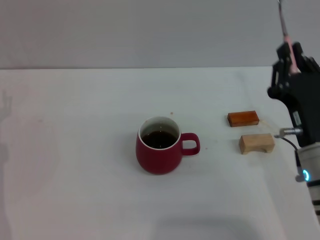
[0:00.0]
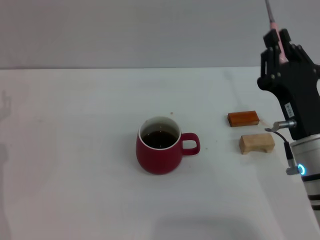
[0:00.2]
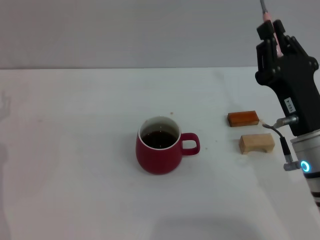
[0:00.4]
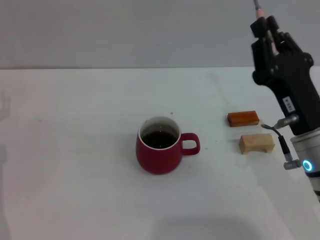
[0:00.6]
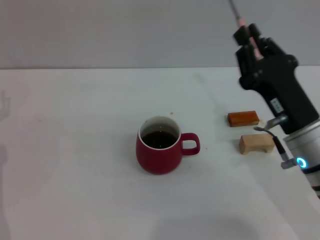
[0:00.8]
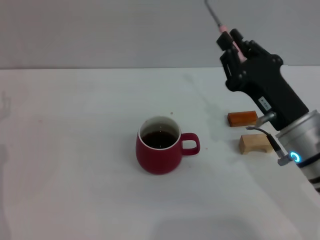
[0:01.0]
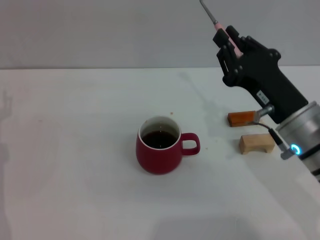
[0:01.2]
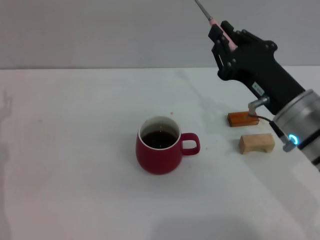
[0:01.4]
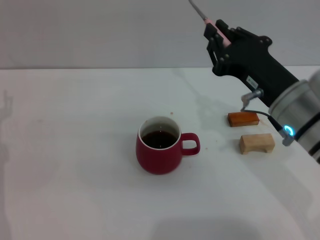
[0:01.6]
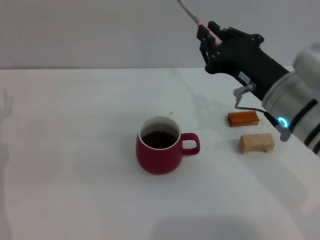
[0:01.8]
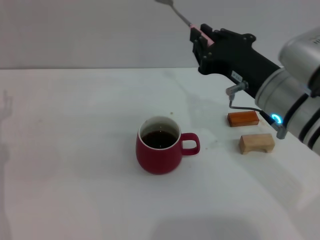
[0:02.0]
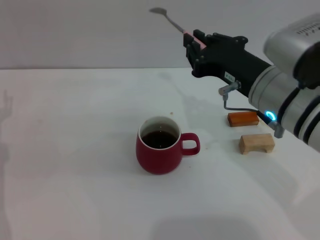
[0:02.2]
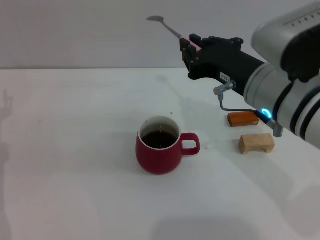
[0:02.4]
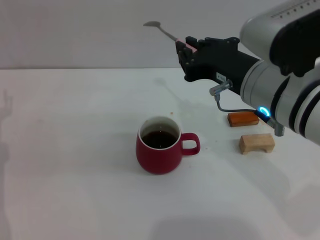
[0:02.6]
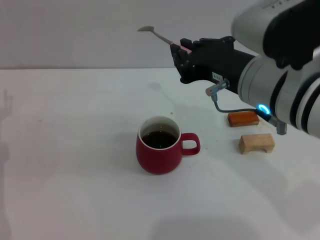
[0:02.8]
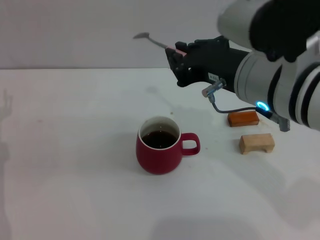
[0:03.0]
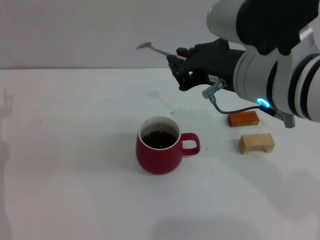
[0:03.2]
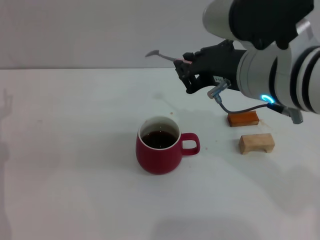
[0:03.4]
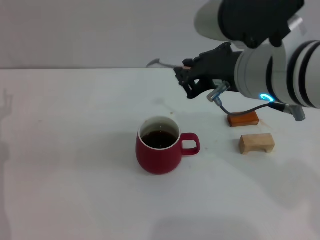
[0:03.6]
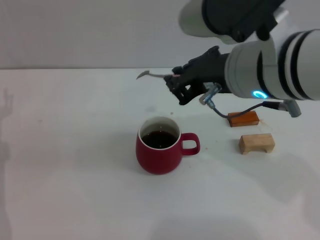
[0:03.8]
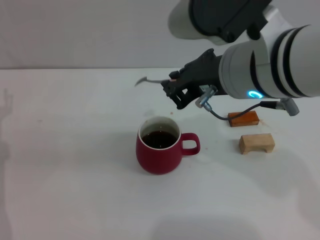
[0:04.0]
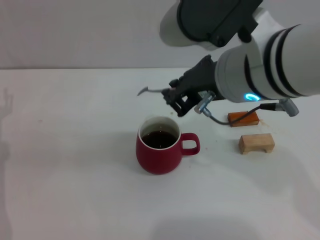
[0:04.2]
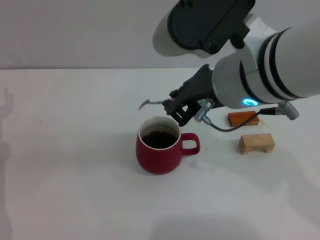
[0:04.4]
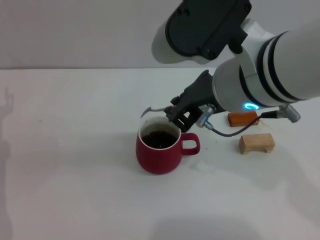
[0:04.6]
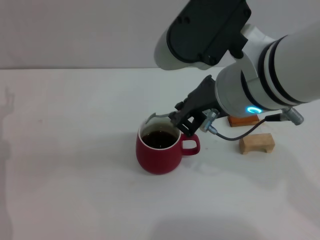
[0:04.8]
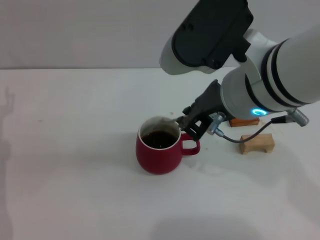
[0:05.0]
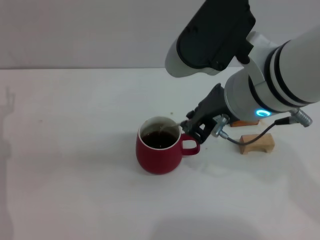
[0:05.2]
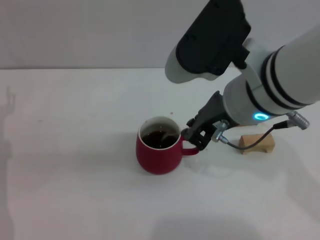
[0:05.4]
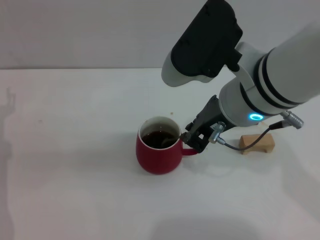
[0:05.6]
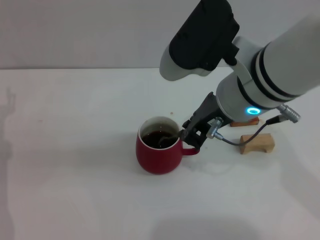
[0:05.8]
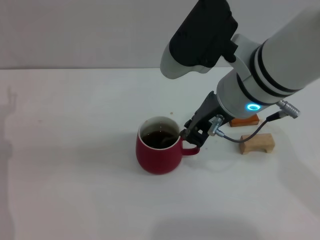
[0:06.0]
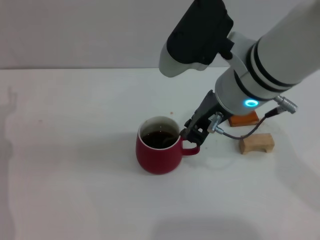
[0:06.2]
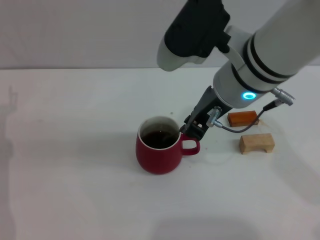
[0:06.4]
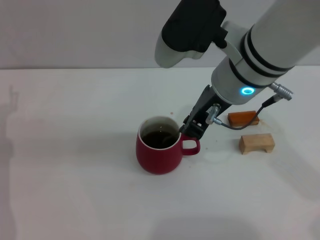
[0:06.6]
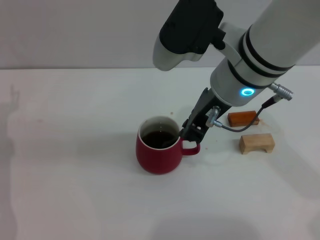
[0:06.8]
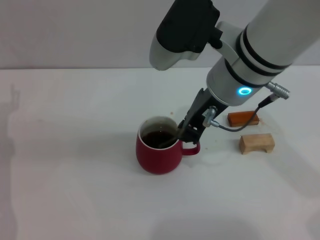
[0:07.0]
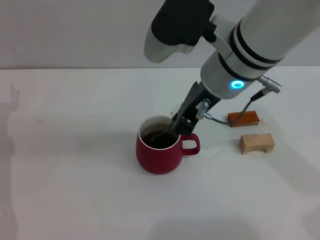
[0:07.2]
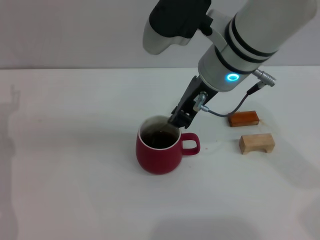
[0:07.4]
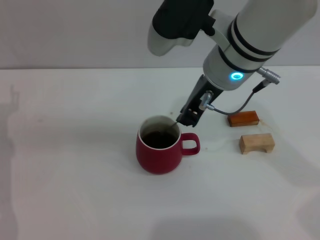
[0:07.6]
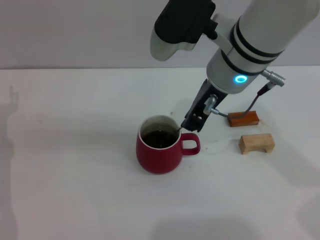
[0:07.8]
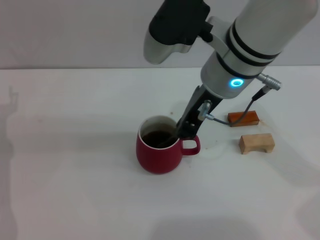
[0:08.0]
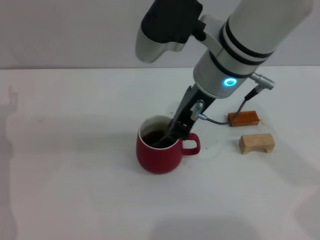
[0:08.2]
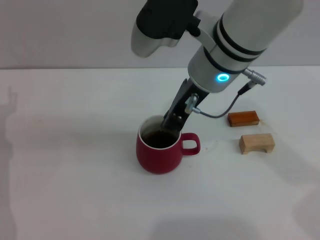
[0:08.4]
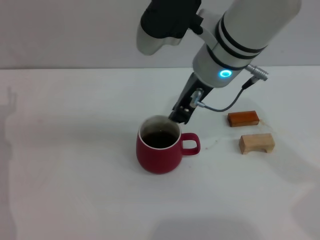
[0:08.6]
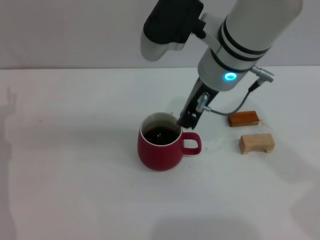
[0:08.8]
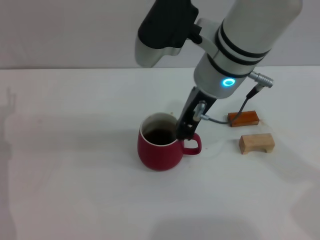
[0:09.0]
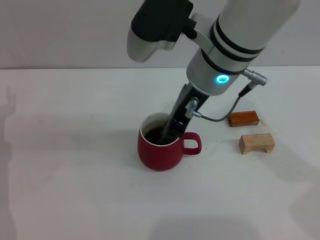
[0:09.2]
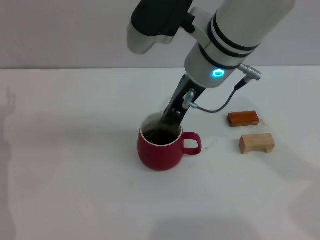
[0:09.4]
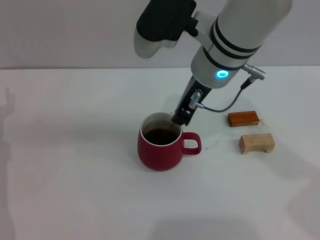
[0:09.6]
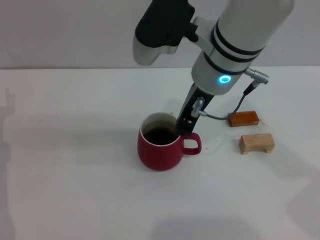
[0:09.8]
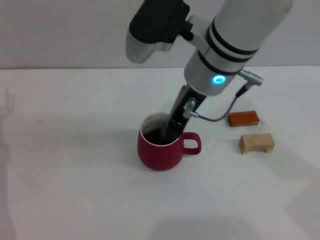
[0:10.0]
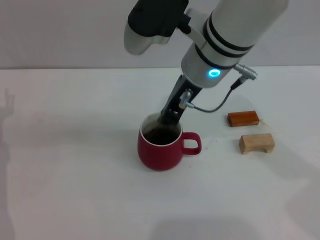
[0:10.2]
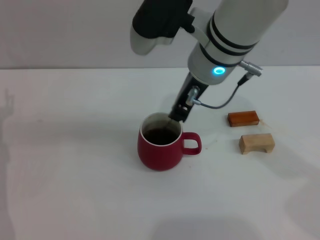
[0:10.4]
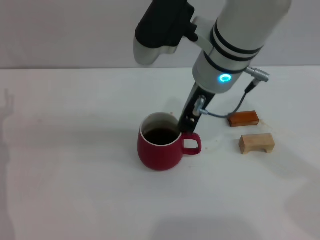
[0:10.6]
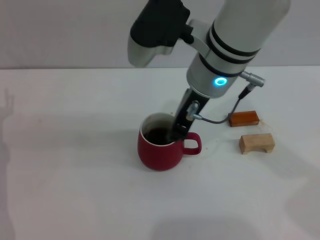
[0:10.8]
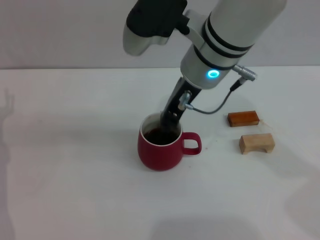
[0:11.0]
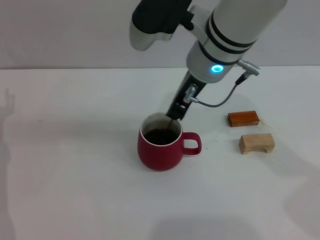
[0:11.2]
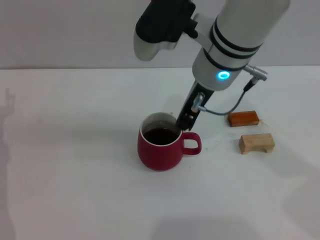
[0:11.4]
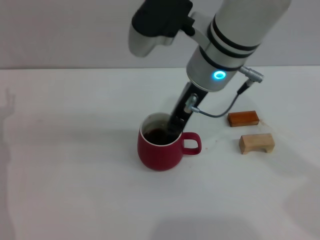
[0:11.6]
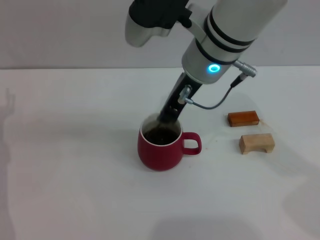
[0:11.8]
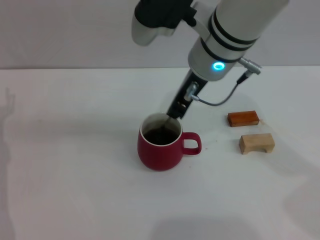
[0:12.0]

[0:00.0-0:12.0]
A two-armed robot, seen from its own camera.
Task of the whole recording: Move the red cup to the center, lift the pink spoon, stir it three times in the cup, and put the spoon into the cup.
0:00.0 to 0:01.6: The right gripper goes about 5 cm upward.
0:01.6 to 0:03.0: The right gripper heads upward and to the left, covering roughly 10 cm.
0:04.4 to 0:06.0: There are only small adjustments of the grippers.
0:06.0 to 0:07.6: The right gripper changes place by approximately 5 cm.
0:07.6 to 0:12.0: The grippers make only small movements.

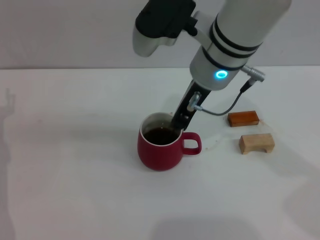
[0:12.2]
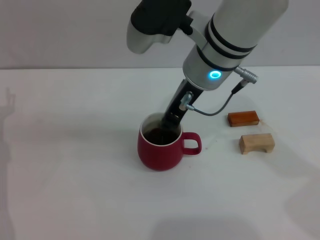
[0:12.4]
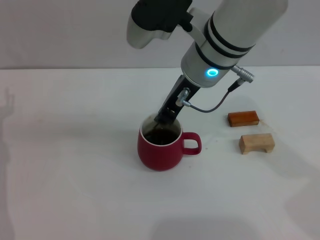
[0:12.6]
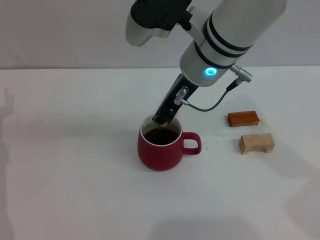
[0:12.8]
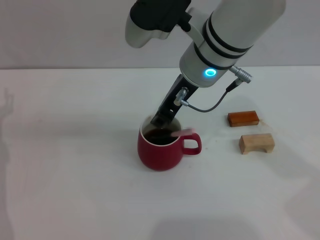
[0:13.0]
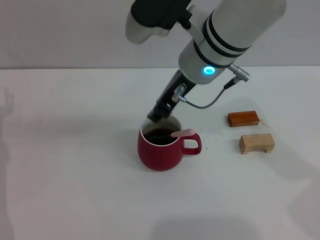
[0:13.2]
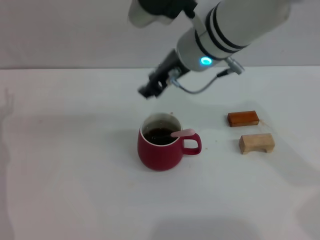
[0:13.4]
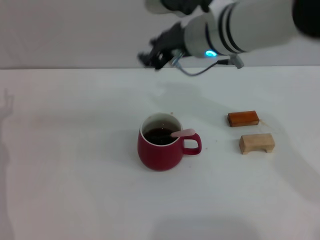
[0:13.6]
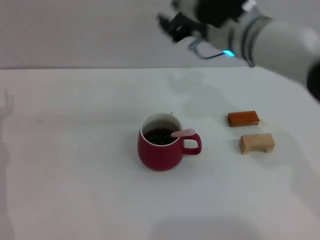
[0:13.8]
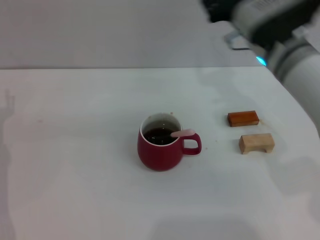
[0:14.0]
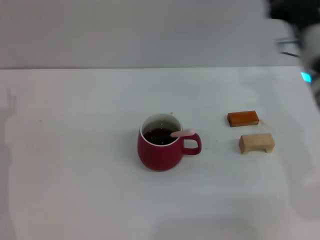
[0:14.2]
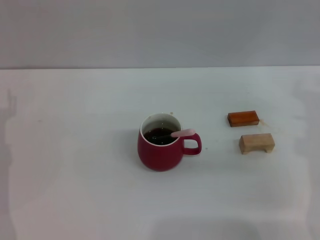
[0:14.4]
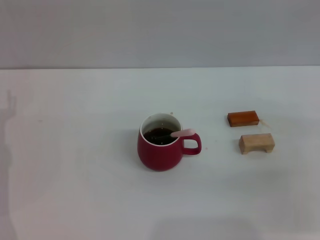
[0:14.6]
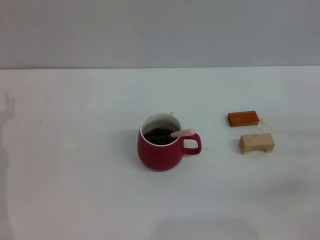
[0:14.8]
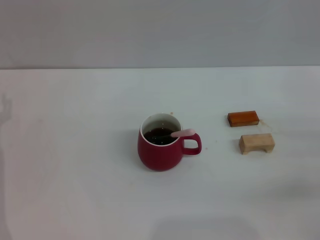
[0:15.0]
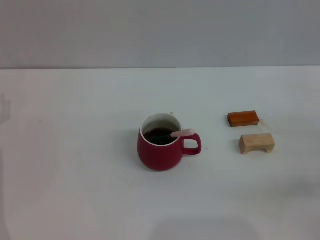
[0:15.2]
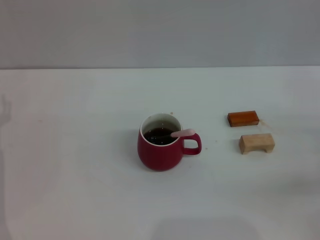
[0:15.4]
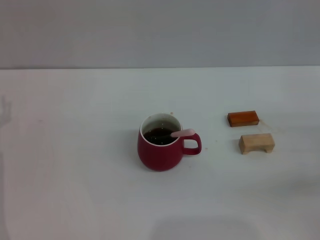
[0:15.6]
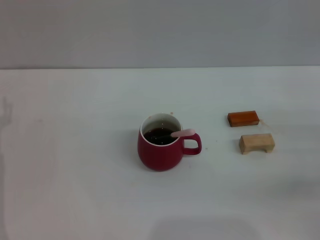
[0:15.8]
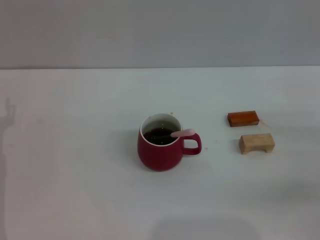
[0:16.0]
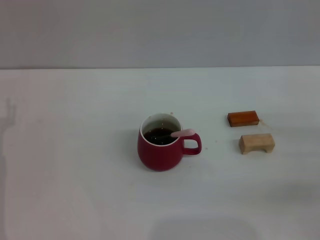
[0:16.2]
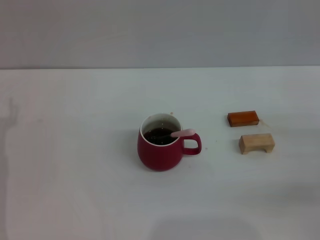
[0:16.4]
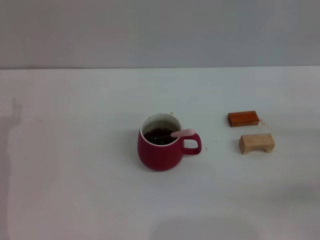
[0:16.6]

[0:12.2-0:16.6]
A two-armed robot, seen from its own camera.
Task of the whole recording: Move the red cup to the center, lift the pink spoon, stir it three times in the cup, and put the spoon into the cup.
0:12.2 to 0:13.6: The right gripper opens its fingers.
0:13.6 to 0:15.2: The right gripper is displaced to the right, downward and backward by roughly 35 cm.

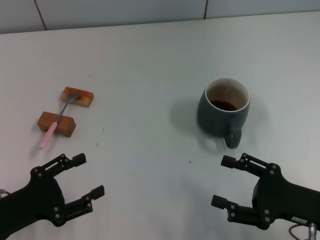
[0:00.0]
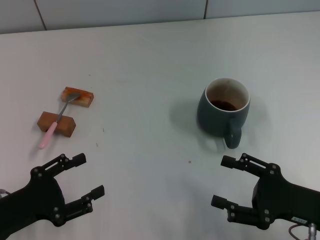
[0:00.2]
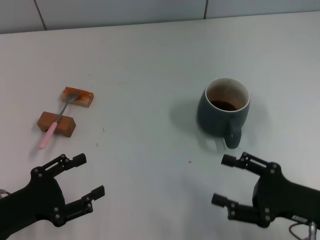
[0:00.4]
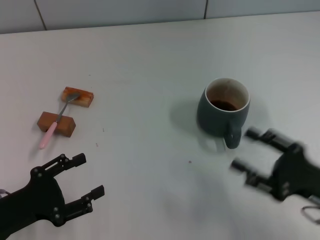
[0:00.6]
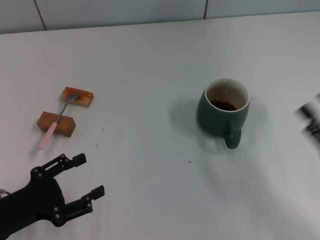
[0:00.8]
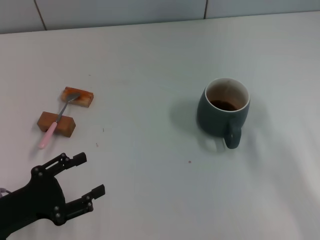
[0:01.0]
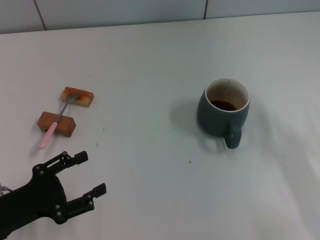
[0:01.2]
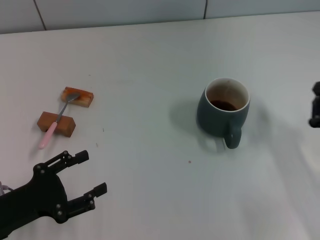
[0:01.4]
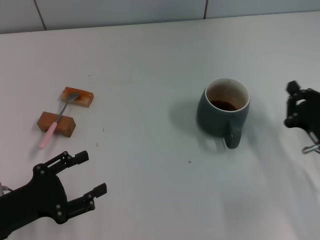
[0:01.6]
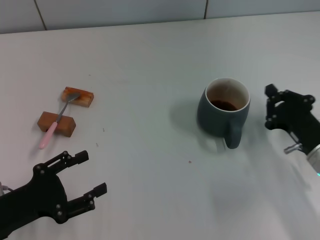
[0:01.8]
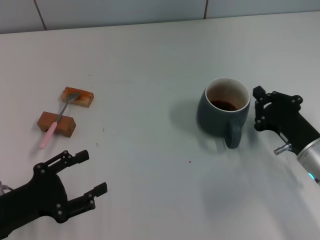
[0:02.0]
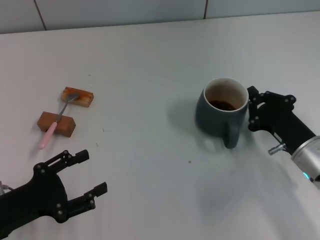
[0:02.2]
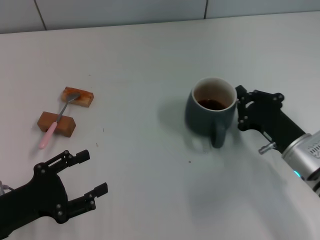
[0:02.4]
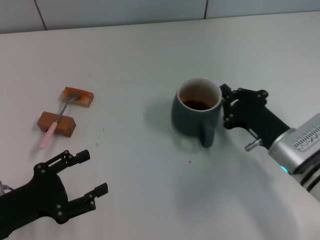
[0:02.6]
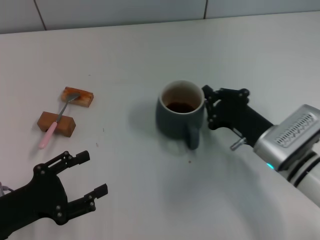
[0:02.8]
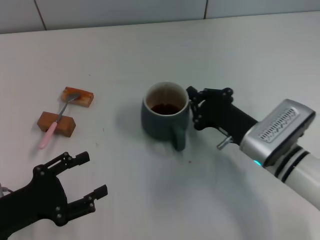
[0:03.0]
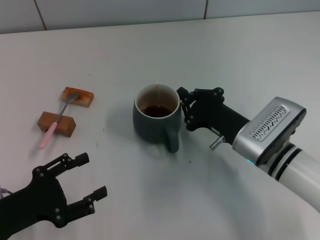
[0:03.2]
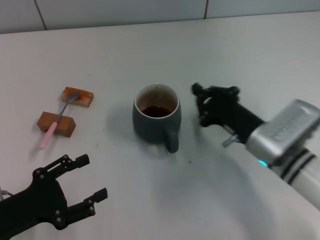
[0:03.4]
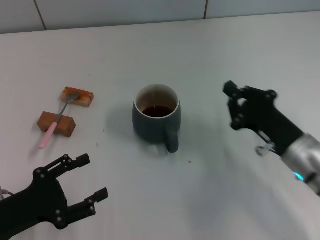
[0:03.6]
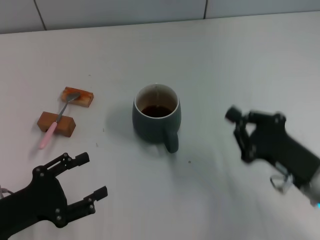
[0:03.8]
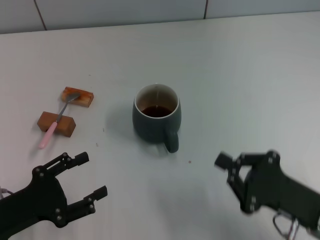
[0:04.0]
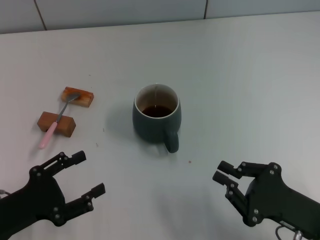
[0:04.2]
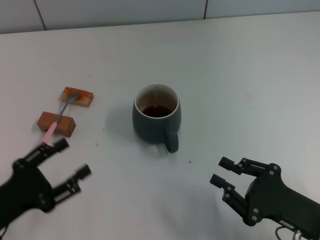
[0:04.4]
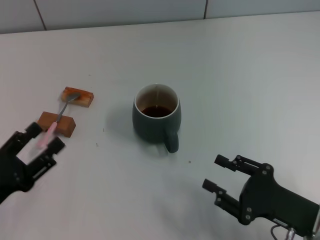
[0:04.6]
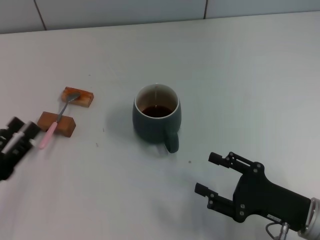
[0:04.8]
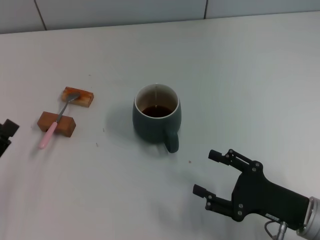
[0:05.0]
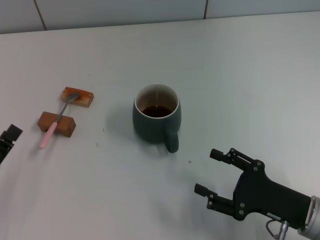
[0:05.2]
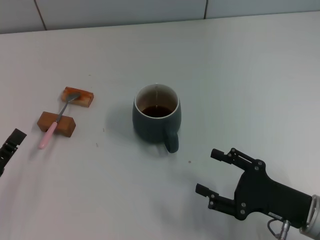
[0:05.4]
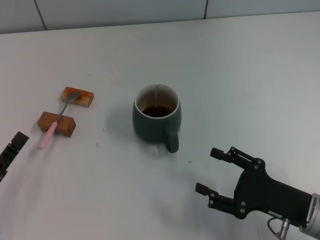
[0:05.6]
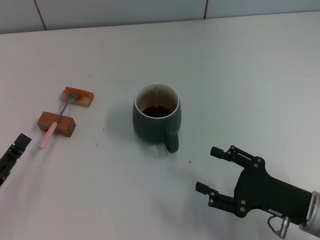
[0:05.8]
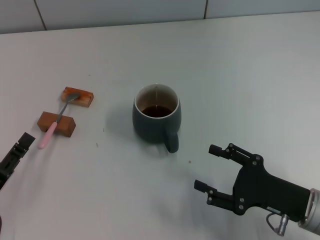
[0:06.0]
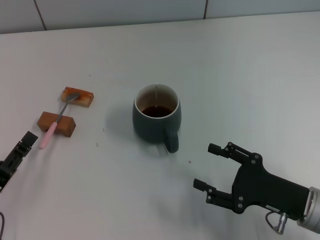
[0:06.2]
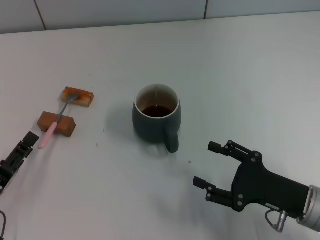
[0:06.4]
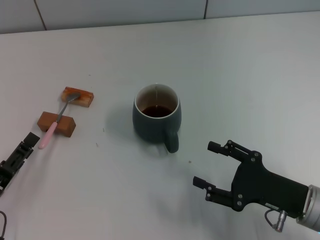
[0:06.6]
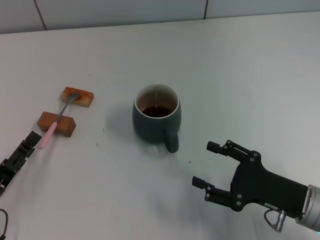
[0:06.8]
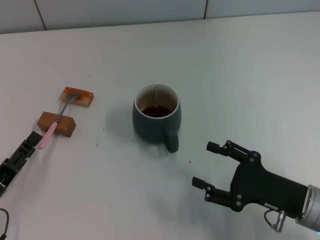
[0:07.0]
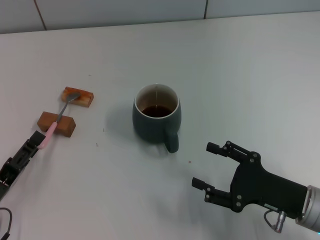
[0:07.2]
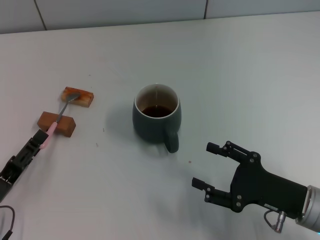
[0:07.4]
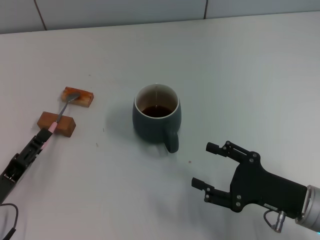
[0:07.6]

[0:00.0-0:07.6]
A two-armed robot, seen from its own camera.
Task of the whole recording: Move the grey cup to the center, lift the pink spoon, stir it three times in the cup, and put the spoon into the cup.
Step, 0:00.0 to 0:03.4: Move the cup with coffee to the center of view with the right gripper.
0:00.0 to 0:01.6: The right gripper is displaced forward by about 5 cm, and closes its fingers.
0:01.6 to 0:03.0: The right gripper goes roughly 10 cm to the left.
0:03.0 to 0:04.6: The right gripper is displaced backward and to the right by about 15 cm, and opens up.
0:04.6 to 0:06.0: The right gripper opens.
0:06.0 to 0:07.6: The grippers move only a little.
